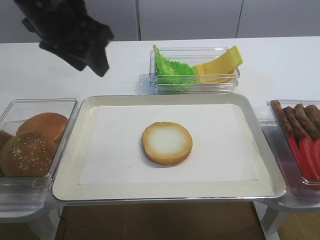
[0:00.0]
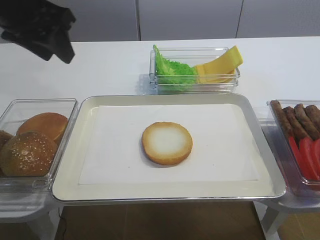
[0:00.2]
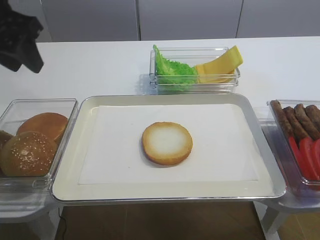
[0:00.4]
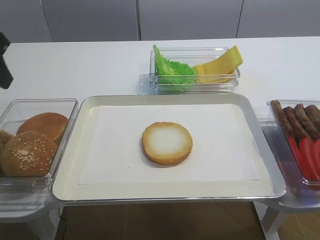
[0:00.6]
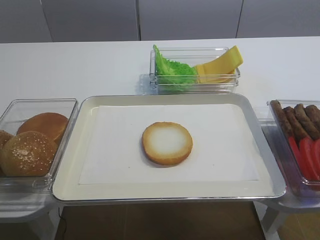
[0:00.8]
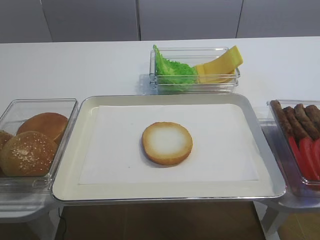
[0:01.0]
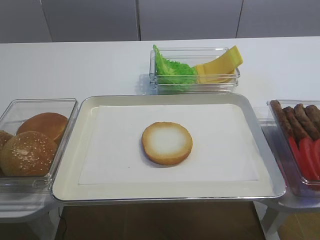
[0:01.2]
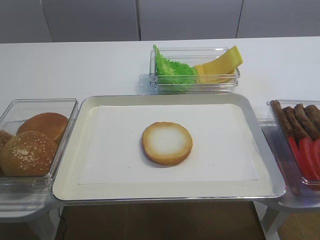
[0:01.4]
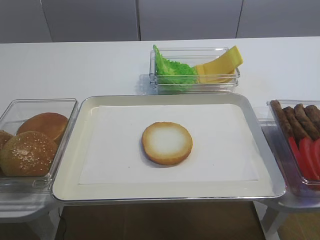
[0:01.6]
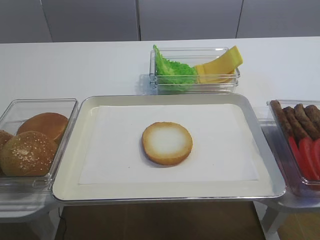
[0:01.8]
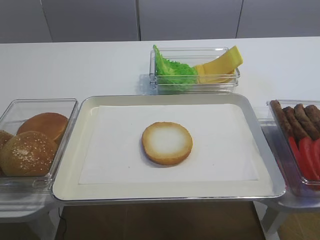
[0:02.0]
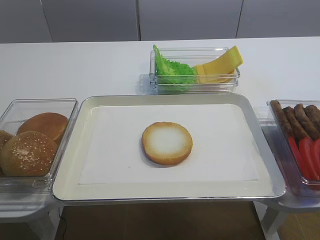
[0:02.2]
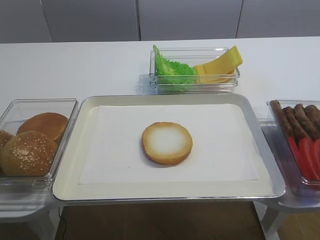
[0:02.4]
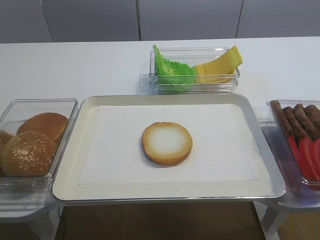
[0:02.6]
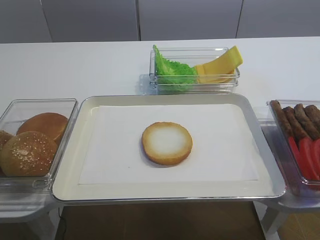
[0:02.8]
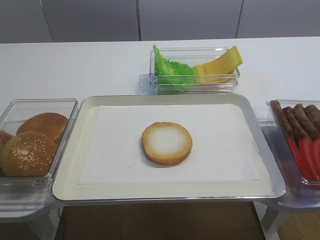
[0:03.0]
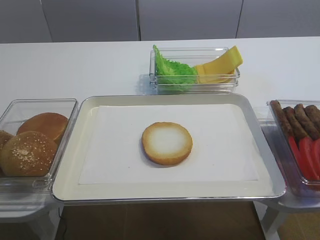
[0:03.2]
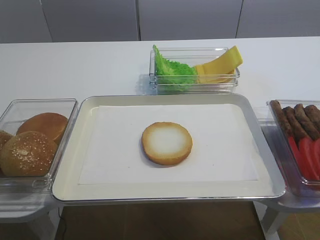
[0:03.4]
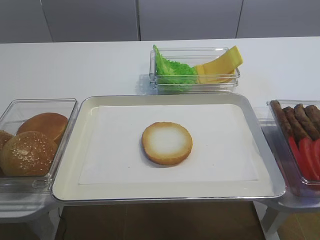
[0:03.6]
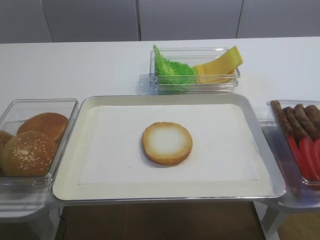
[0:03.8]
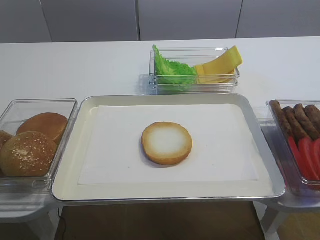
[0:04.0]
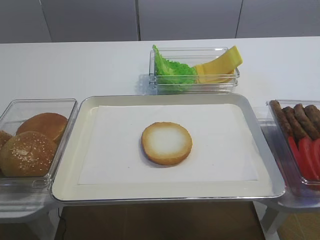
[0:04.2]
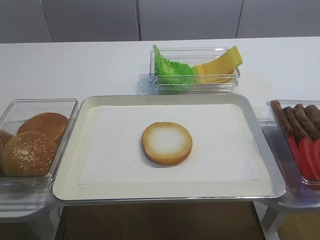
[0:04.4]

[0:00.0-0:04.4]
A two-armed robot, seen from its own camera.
0:00.0 to 0:01.4: The left gripper is displaced backward and to the left by approximately 25 cm.
0:03.0 to 0:04.4: Both grippers stay about where they are.

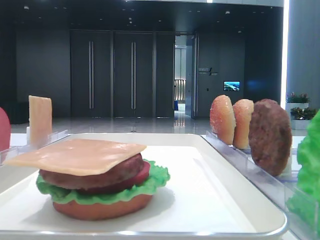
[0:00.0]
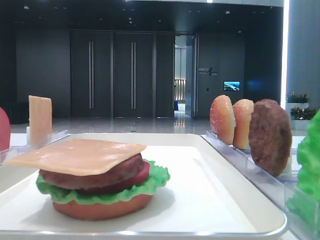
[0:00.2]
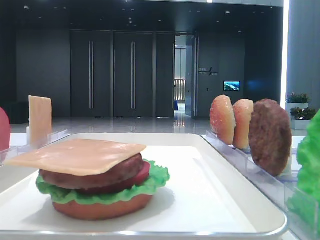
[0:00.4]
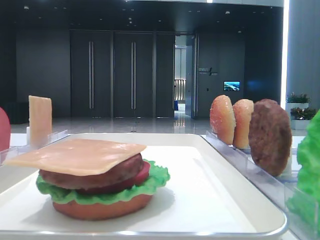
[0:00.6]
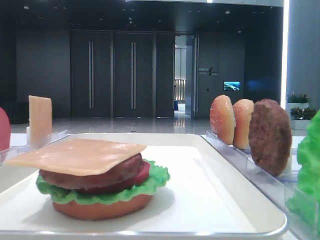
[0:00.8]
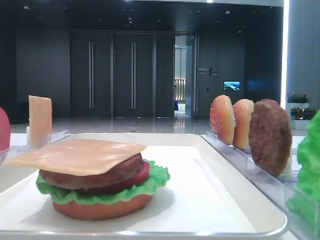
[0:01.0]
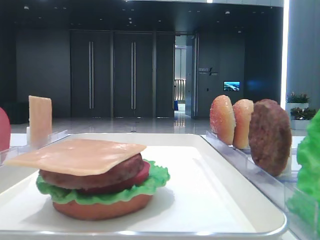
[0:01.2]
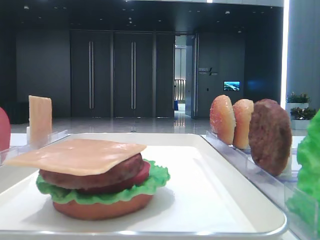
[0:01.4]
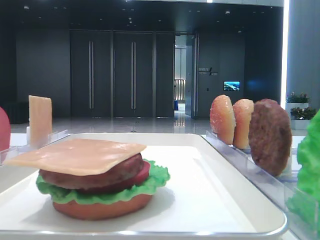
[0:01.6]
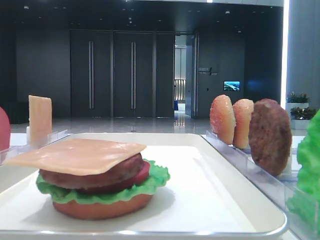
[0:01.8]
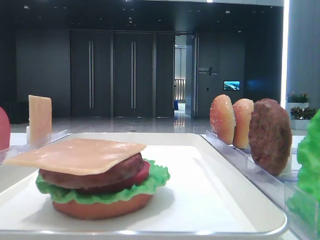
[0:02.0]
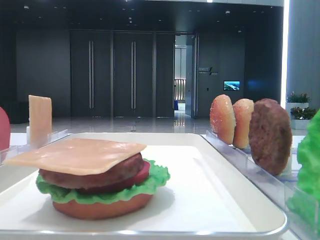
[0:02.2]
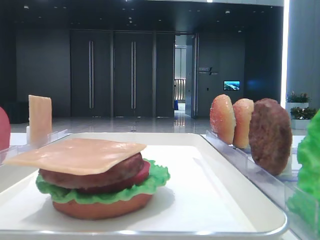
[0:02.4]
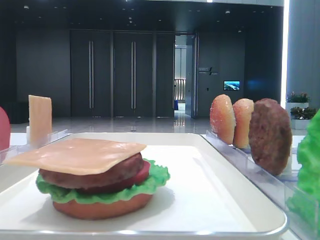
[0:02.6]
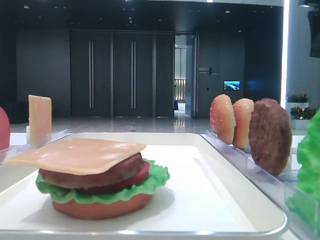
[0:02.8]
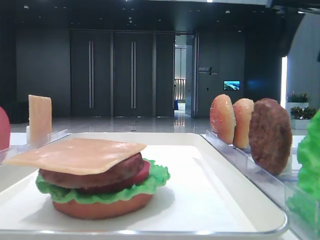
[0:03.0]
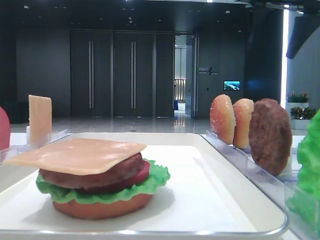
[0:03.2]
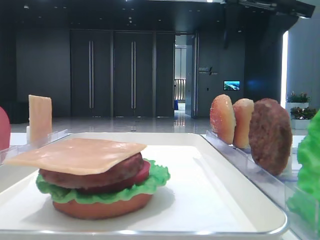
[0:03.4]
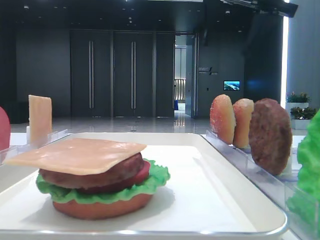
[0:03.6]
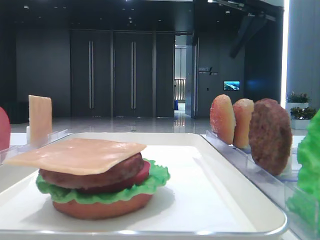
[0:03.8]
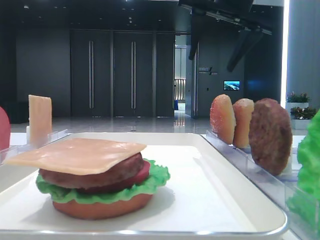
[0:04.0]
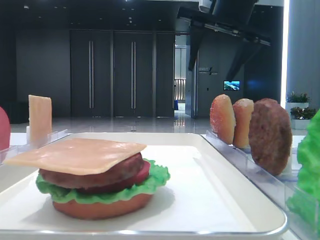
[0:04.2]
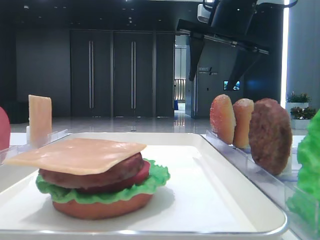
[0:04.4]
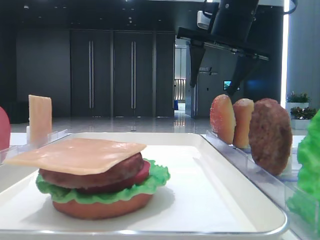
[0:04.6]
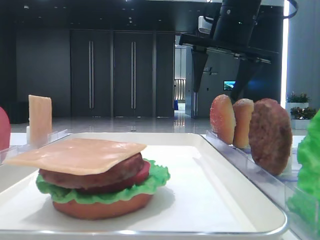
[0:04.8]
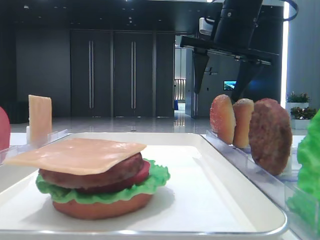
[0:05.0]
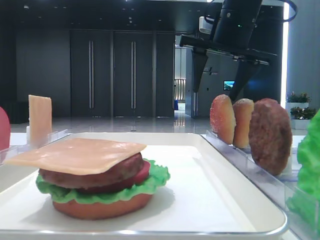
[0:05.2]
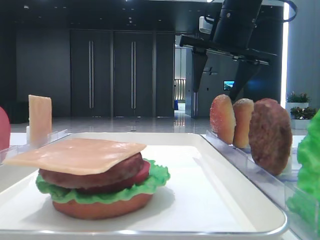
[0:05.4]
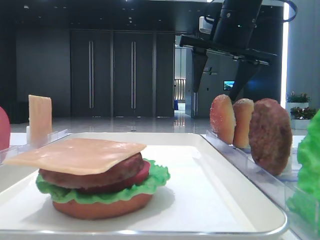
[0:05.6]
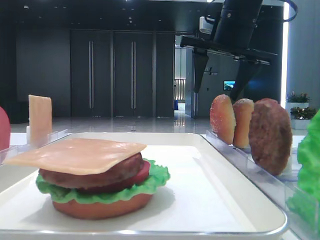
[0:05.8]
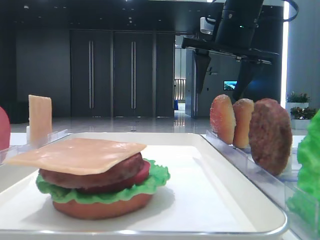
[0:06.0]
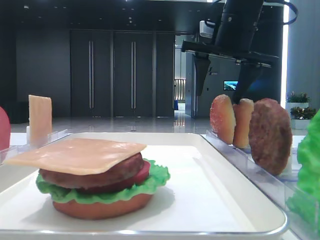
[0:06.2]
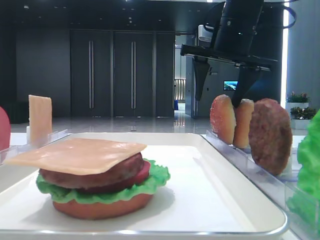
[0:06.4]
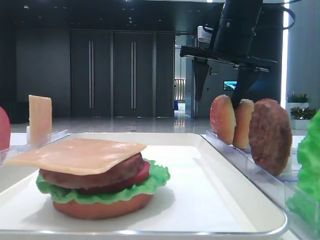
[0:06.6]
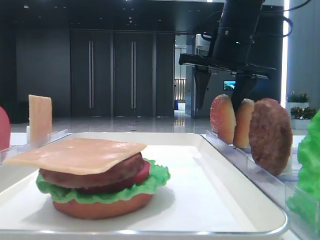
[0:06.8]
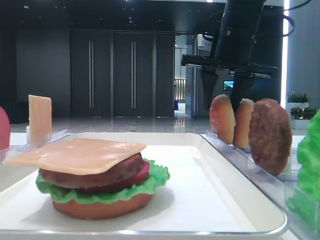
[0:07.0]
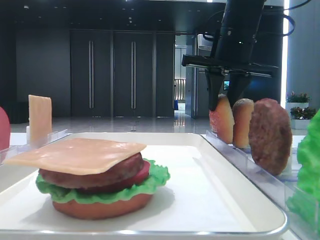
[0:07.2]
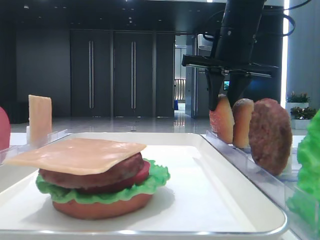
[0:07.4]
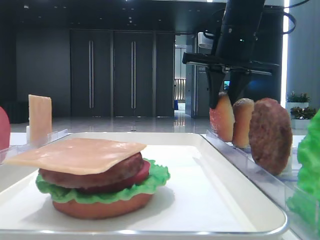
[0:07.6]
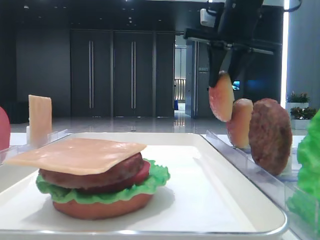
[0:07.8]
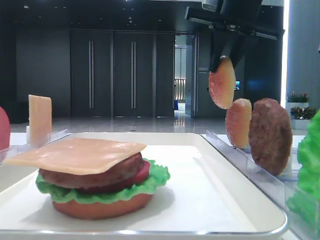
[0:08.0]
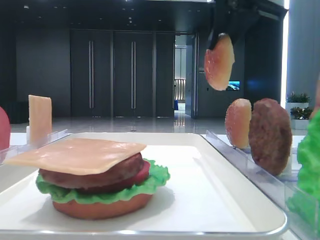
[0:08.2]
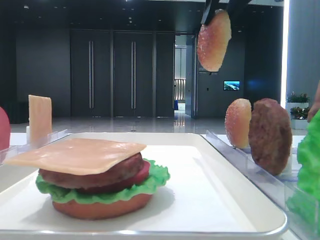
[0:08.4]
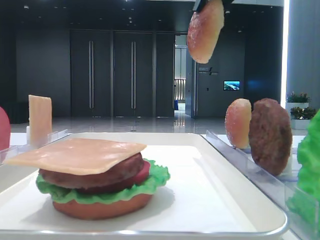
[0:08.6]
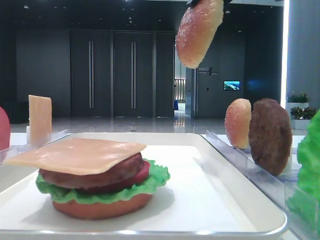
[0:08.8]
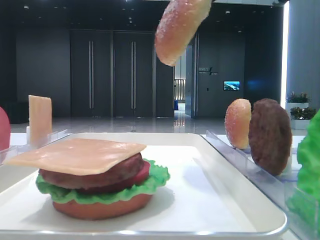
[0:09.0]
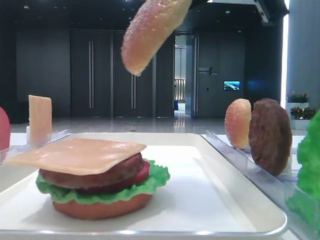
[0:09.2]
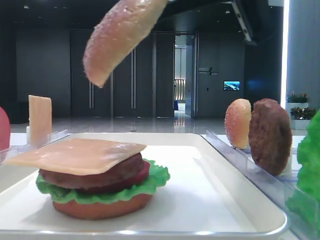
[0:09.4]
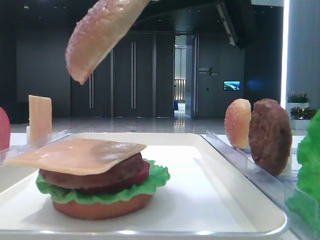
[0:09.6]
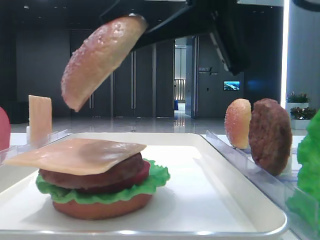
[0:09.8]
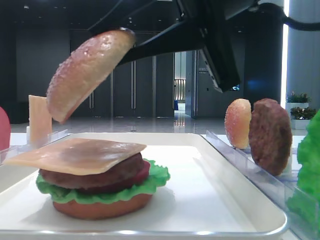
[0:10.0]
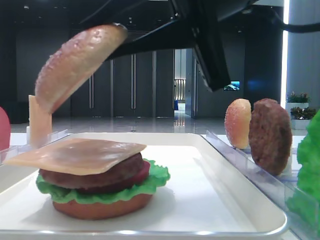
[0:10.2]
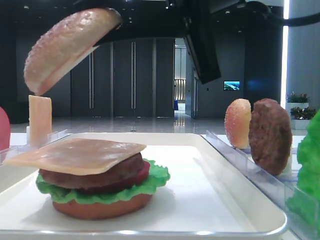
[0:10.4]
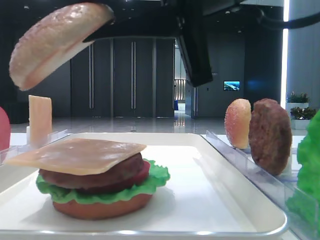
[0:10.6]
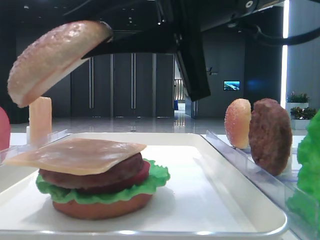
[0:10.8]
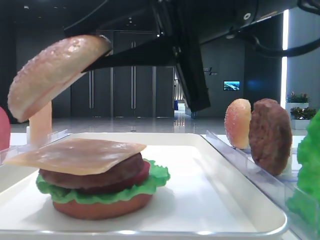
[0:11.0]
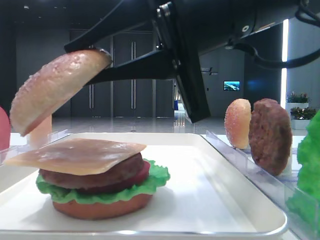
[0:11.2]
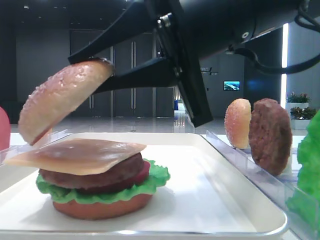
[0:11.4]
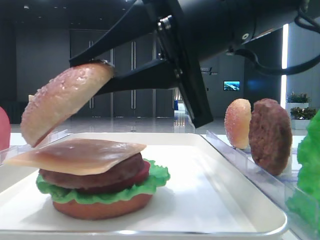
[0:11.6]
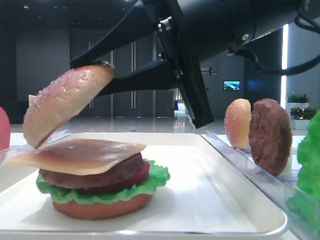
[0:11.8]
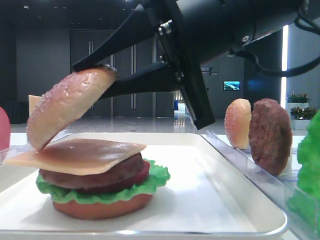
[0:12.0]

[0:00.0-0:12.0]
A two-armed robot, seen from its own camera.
Step, 0:00.0 to 0:07.2: Pick up the top bread slice with the right hand.
0:01.6 to 0:03.0: The right gripper moves forward, roughly 25 cm.
0:03.0 to 0:04.4: The right gripper is displaced to the left by approximately 15 cm.
0:04.4 to 0:06.0: There are only small adjustments of the grippers.
0:06.0 to 0:07.6: The right gripper closes its fingers.
0:07.6 to 0:09.0: The right gripper travels backward and upward by some 20 cm.
0:09.0 to 0:10.4: The right gripper goes roughly 10 cm downward.

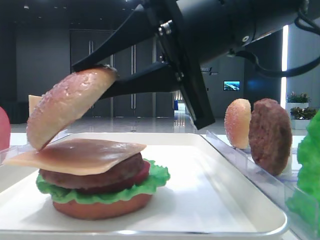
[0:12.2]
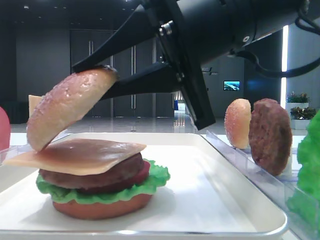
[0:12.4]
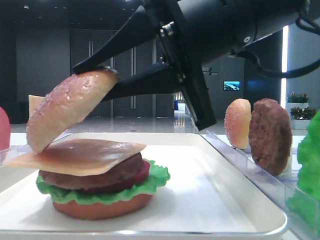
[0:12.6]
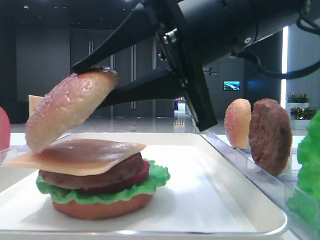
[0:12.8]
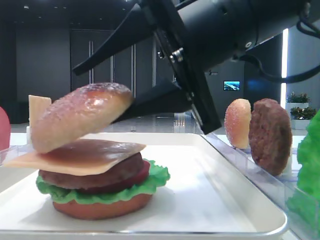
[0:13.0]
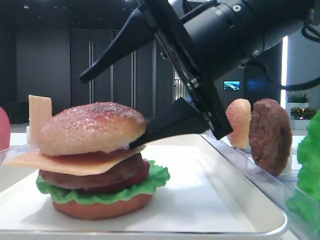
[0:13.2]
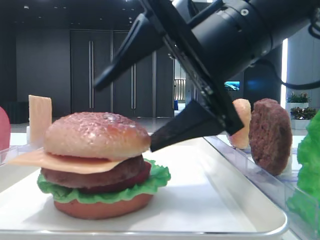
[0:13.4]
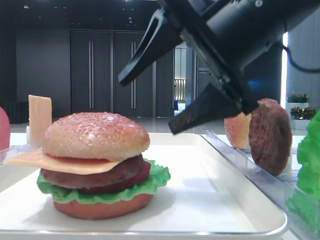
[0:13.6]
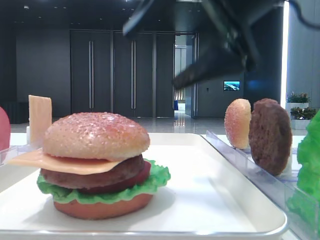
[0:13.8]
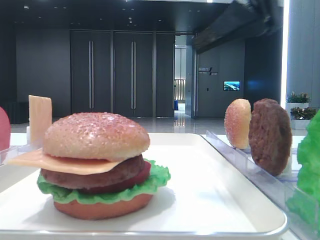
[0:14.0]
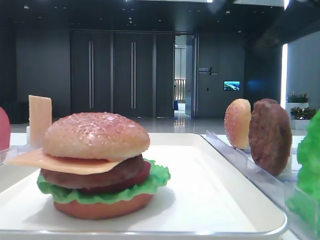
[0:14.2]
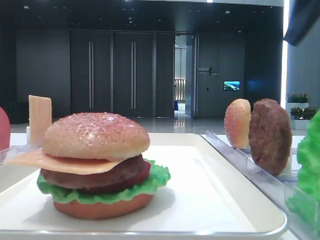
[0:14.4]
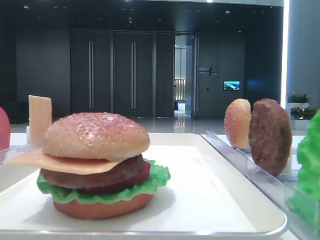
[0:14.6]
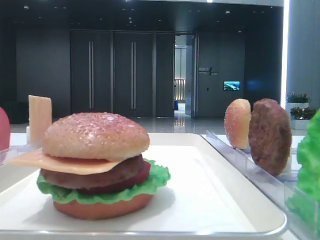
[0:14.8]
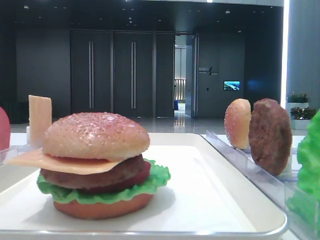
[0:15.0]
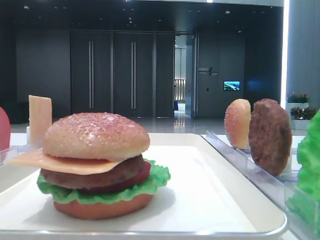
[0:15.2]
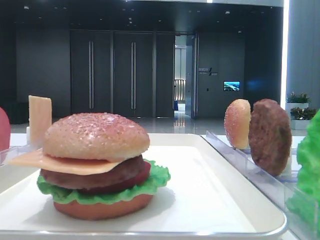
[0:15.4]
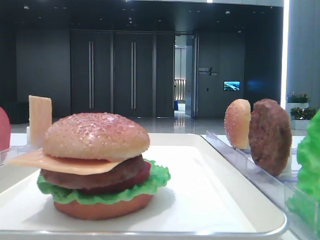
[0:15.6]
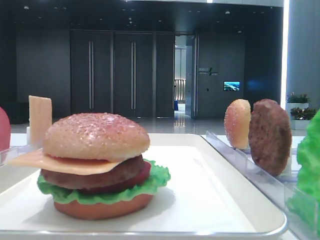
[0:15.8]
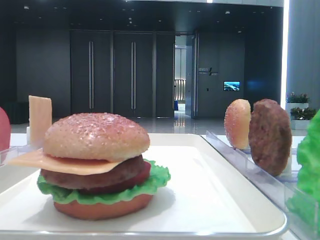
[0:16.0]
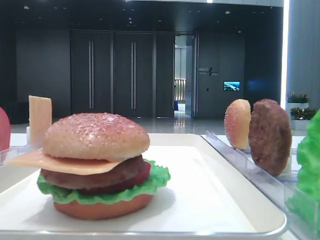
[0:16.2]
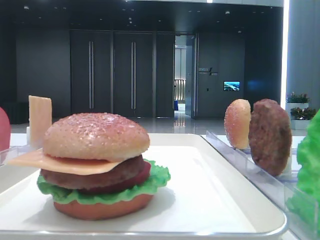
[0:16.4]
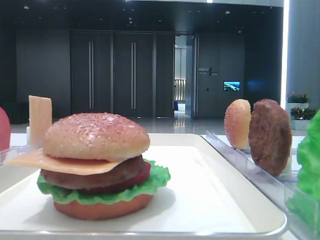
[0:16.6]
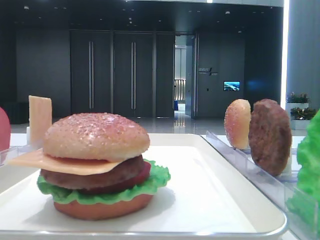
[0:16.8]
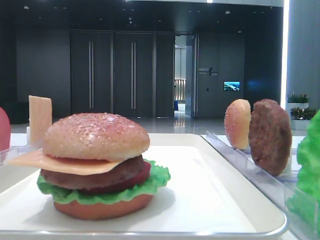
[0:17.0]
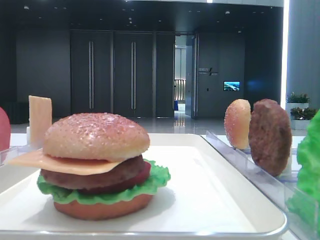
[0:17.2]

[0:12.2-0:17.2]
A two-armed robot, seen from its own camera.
0:12.2 to 0:13.8: The right gripper heads upward, covering some 5 cm, and opens its fingers.
0:13.8 to 0:15.6: The right gripper heads to the right and backward, covering about 25 cm.
